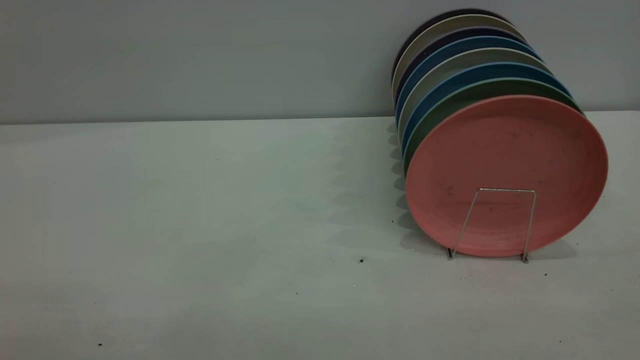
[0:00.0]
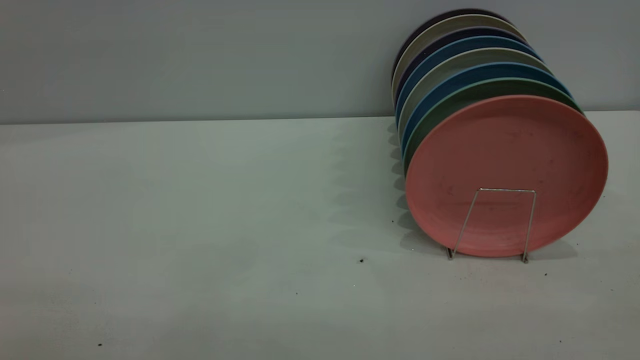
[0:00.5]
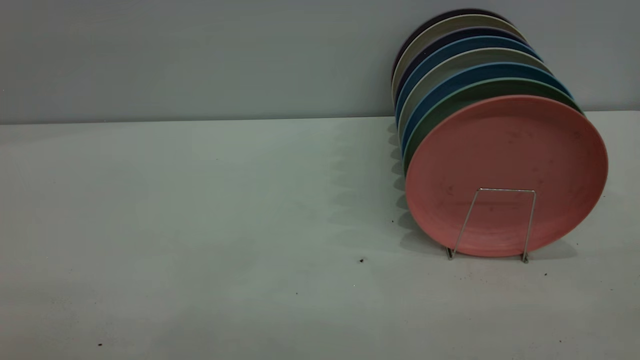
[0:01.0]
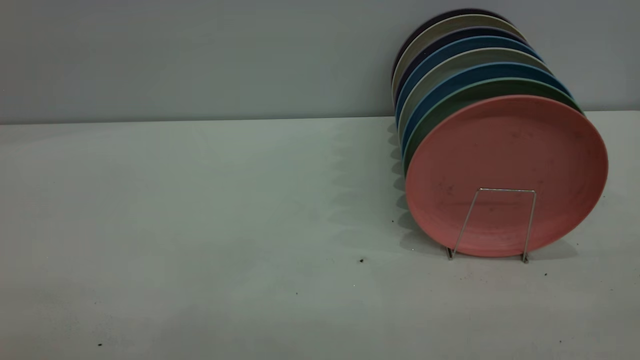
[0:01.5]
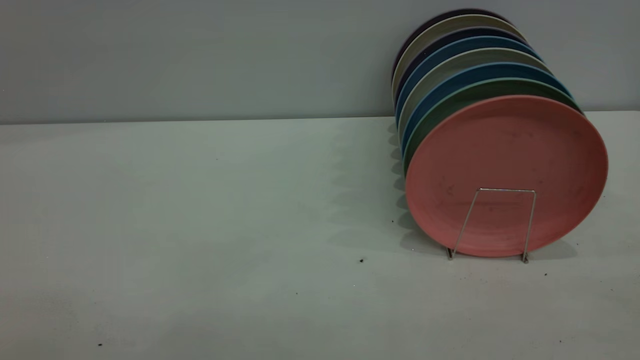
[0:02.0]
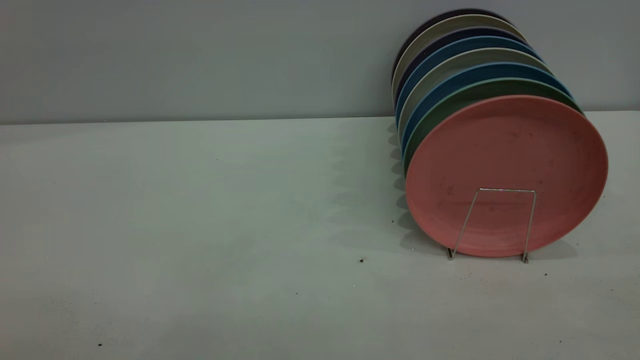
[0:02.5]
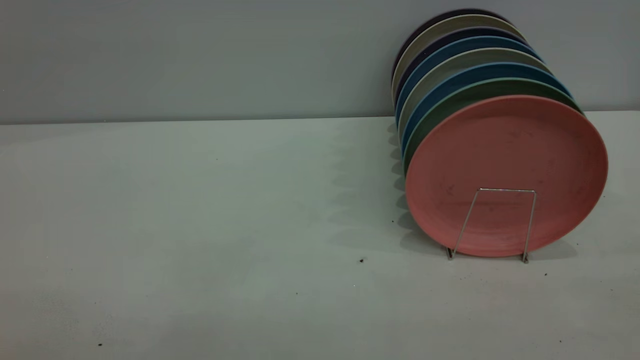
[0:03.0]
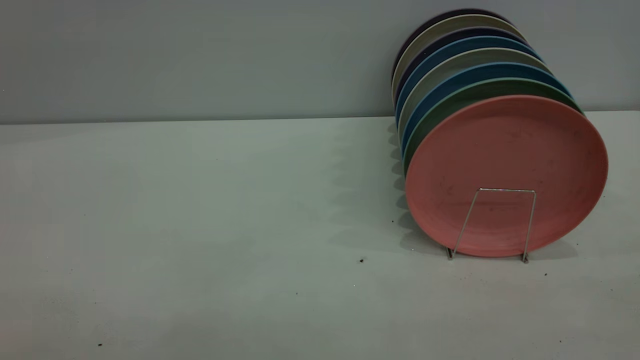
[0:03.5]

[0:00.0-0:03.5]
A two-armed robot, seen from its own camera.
Task of the whole recording: put the plate on the plate rack.
0:02.0 to 0:03.5: Both grippers stay put.
